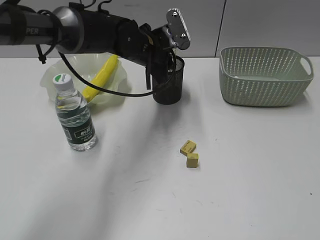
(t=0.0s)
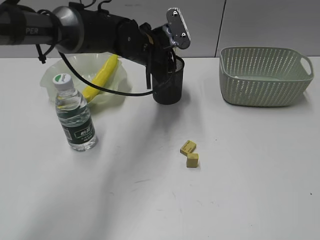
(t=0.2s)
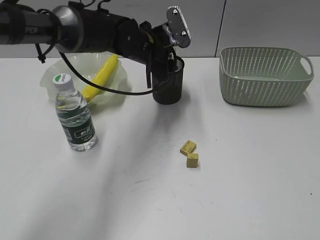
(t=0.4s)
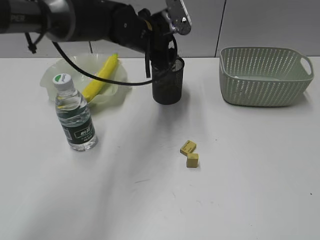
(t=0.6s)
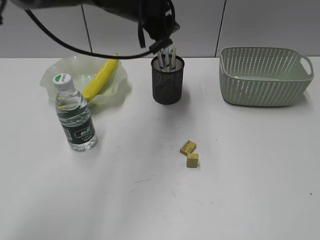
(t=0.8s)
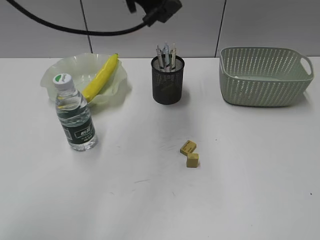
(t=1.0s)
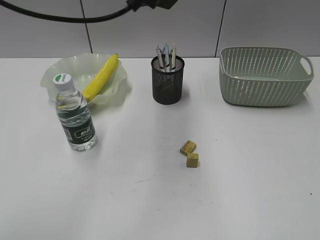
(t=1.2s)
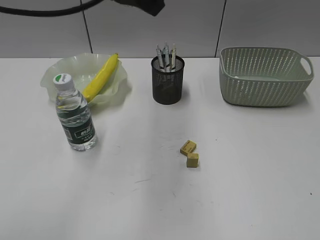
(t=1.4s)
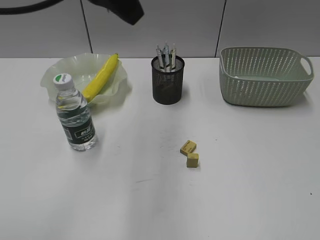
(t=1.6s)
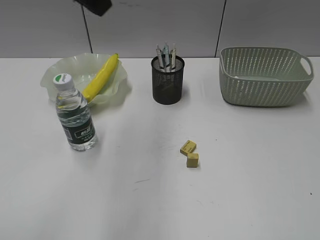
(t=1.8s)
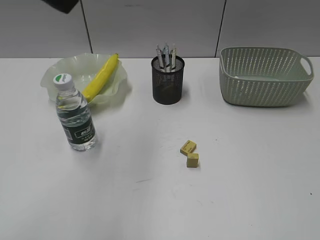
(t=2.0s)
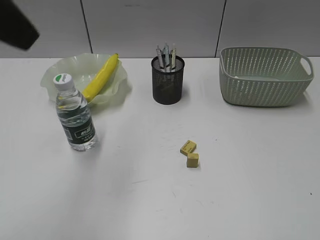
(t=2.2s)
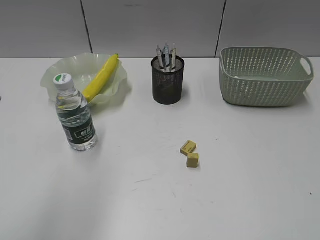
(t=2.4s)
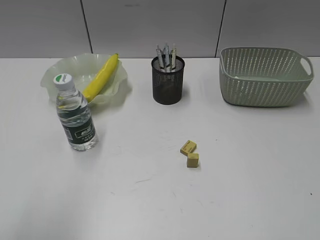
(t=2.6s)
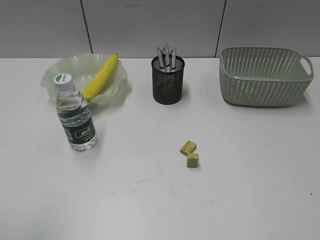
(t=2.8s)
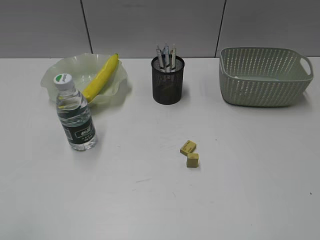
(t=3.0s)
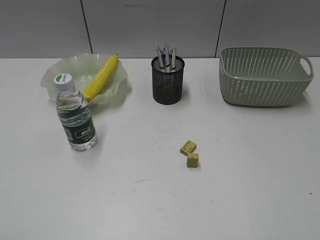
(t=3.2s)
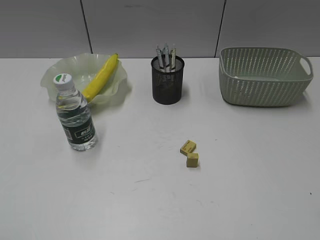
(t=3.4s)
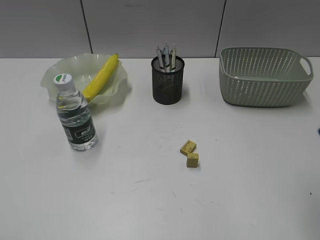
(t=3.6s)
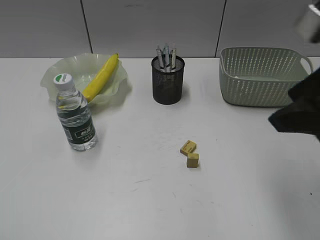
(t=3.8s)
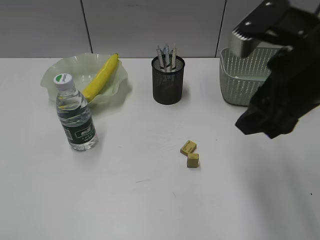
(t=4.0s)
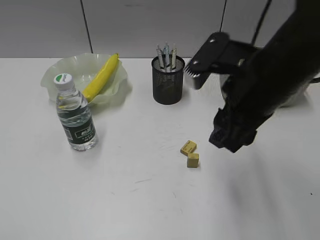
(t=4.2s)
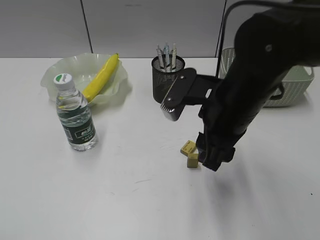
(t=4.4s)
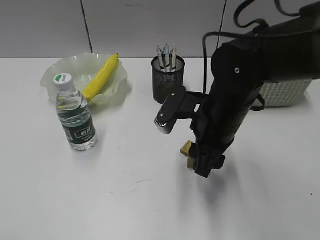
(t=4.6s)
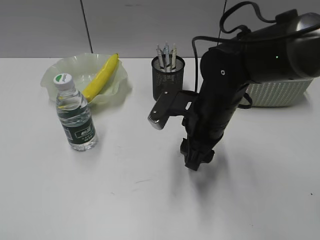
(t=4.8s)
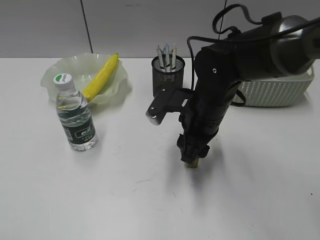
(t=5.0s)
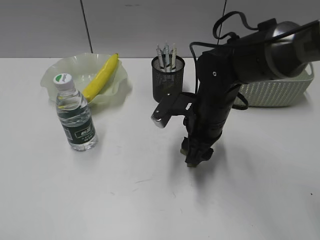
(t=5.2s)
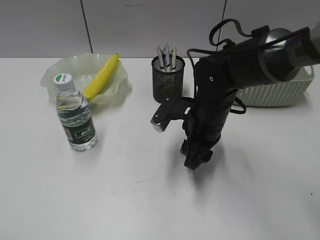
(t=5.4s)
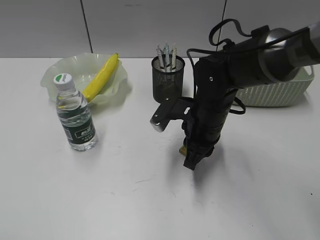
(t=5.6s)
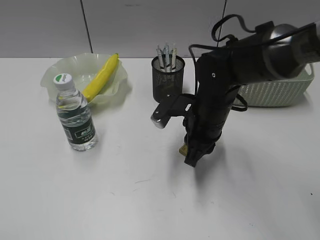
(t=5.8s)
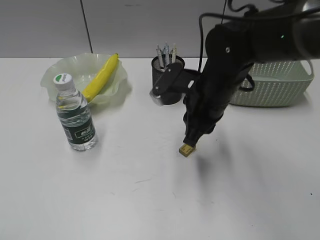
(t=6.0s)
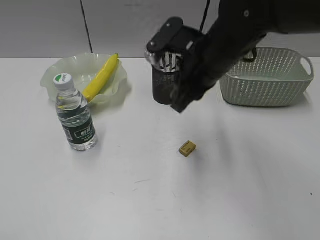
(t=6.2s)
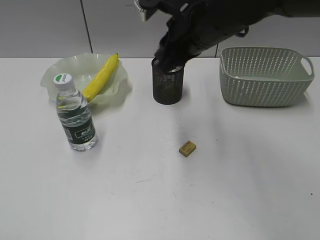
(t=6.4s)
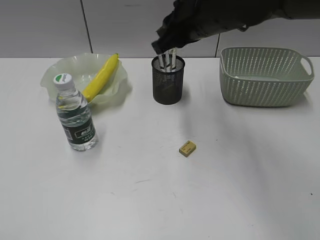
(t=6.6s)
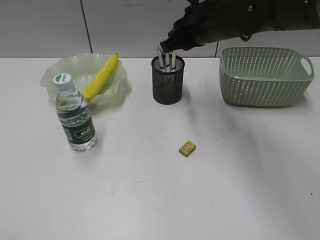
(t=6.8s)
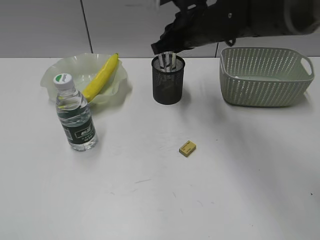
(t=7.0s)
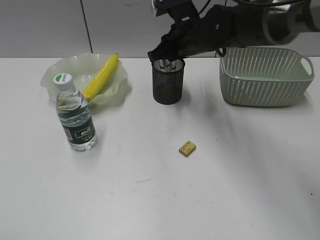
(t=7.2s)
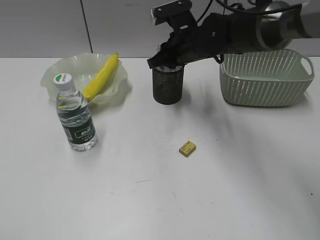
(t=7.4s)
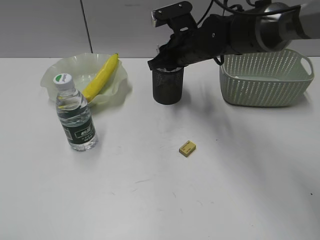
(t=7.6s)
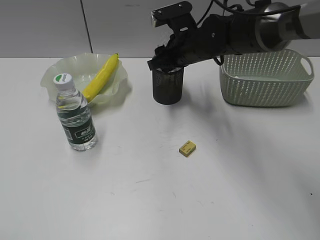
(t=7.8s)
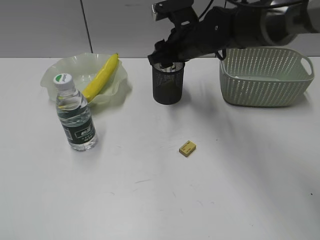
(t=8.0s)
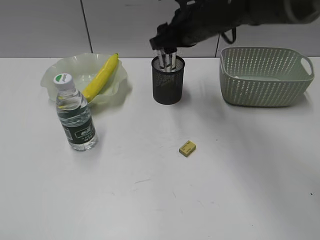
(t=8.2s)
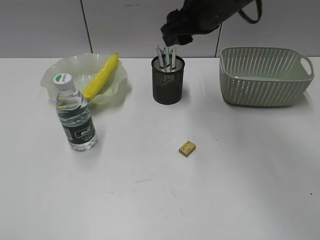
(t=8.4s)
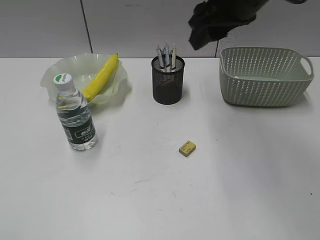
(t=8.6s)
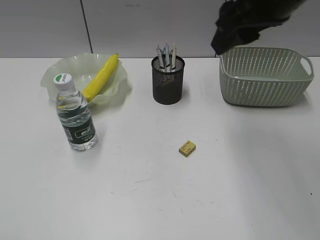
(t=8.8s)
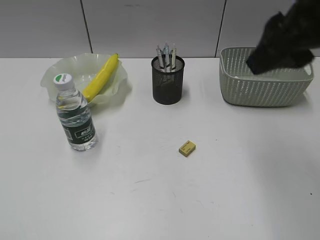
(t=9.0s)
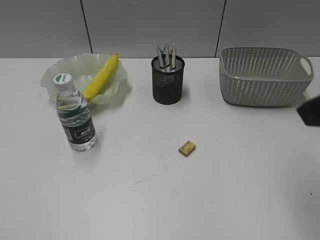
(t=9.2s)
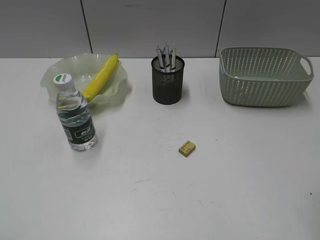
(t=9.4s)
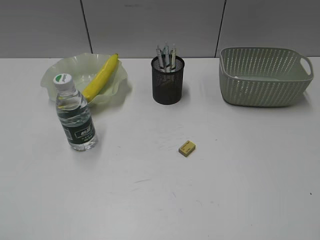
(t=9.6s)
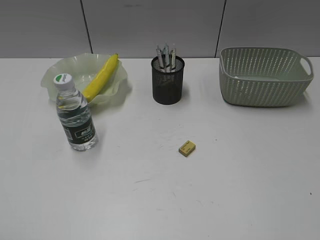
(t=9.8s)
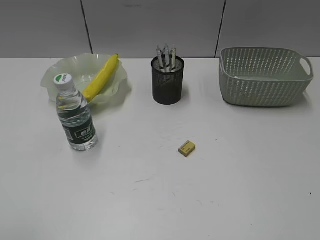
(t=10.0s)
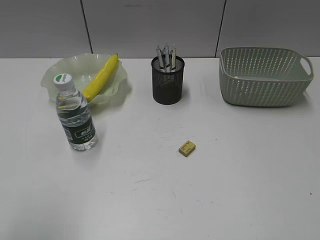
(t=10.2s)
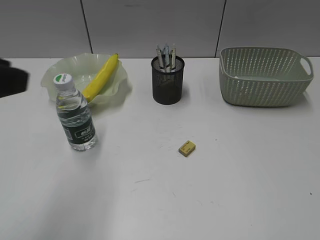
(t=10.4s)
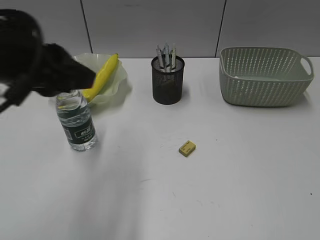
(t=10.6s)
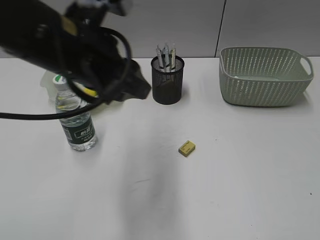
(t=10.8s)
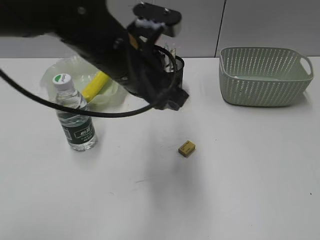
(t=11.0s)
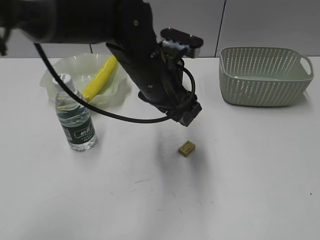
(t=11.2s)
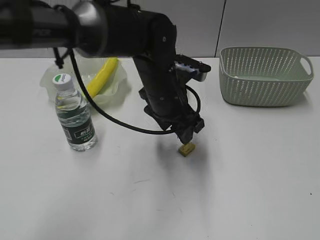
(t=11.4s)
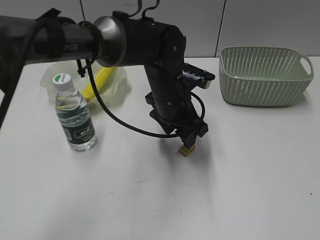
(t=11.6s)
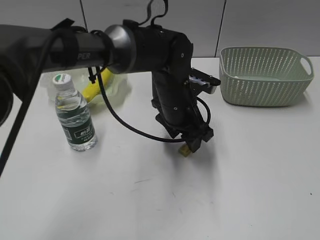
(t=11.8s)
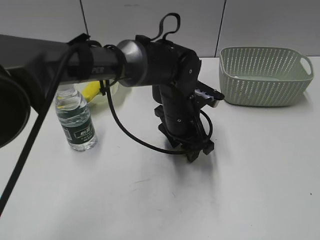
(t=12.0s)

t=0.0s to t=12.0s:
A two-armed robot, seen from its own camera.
Step, t=0.6s to t=5.6s: Grasp the eraser with right gripper.
Step, t=5.8s to t=7.8s: Place the eraser in pen holder with right gripper.
t=0.0s to t=1.6s: The left gripper heads upward and backward, covering about 25 cm, and opens up.
t=1.6s to t=3.0s: The left gripper is displaced backward, to the left and downward by some 35 cm.
t=3.0s to t=4.4s: The right gripper moves forward and to the left, some 35 cm.
t=4.4s to t=6.0s: The right gripper goes approximately 5 cm forward, and closes up.
t=6.0s to t=7.6s: The right gripper shifts approximately 10 cm forward.
t=7.6s to t=9.0s: The right gripper travels backward, upward and to the right by approximately 30 cm, and opens its fingers.
t=9.0s to t=10.4s: The right gripper travels backward and to the right by roughly 25 cm. Meanwhile the left gripper is displaced forward and to the right by approximately 15 cm.
t=10.4s to t=12.0s: The left gripper shifts some 40 cm to the right, downward and forward.

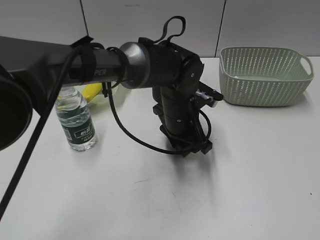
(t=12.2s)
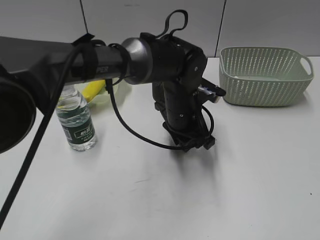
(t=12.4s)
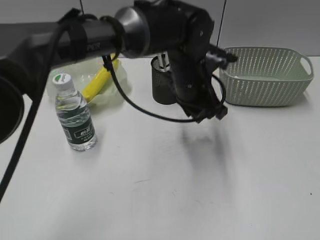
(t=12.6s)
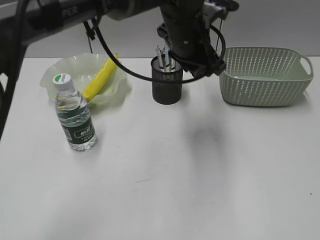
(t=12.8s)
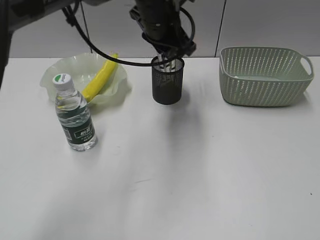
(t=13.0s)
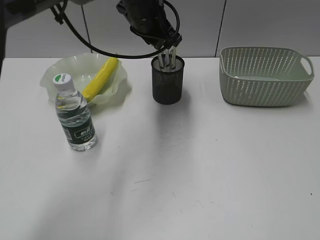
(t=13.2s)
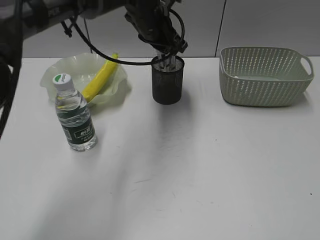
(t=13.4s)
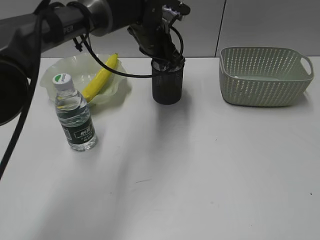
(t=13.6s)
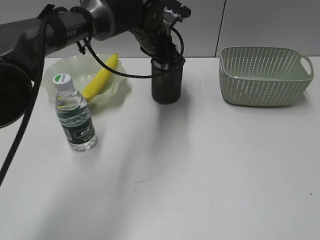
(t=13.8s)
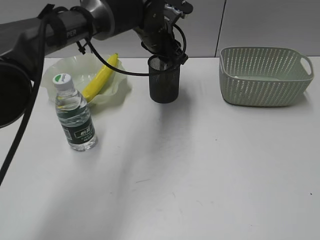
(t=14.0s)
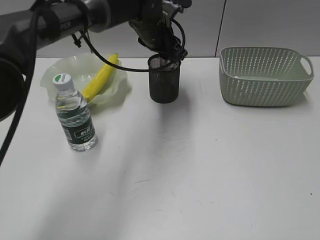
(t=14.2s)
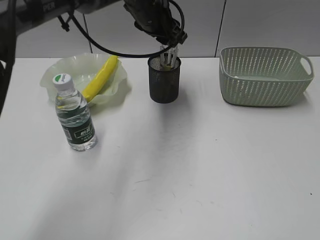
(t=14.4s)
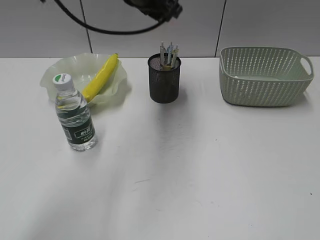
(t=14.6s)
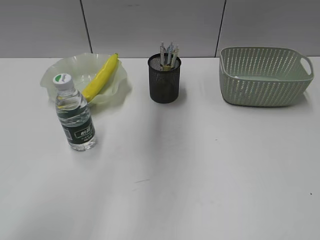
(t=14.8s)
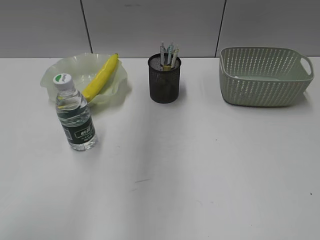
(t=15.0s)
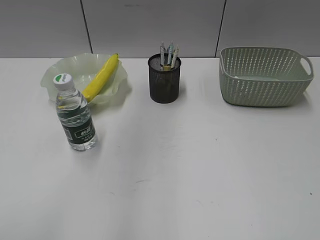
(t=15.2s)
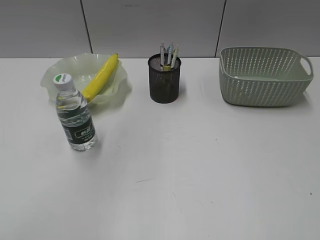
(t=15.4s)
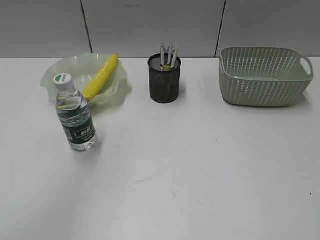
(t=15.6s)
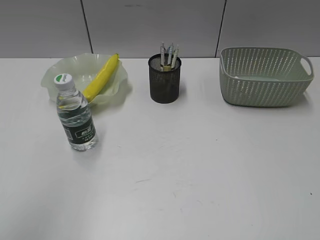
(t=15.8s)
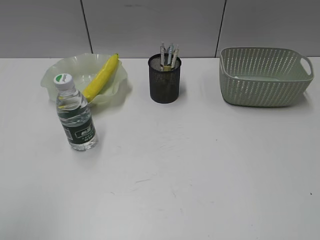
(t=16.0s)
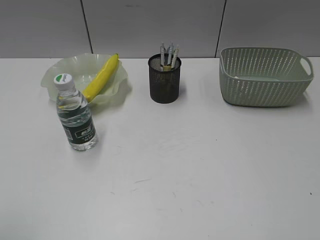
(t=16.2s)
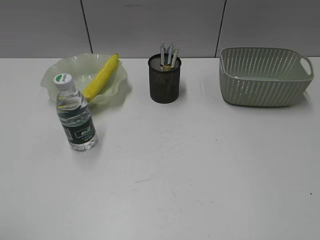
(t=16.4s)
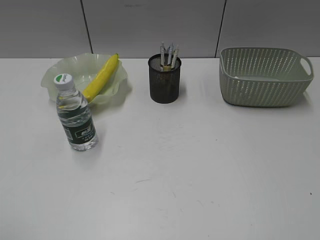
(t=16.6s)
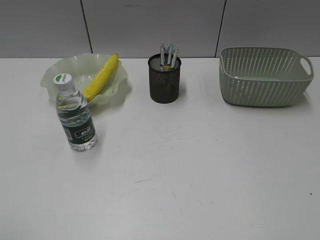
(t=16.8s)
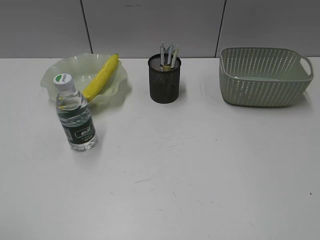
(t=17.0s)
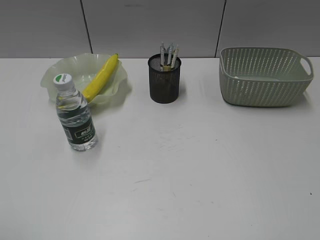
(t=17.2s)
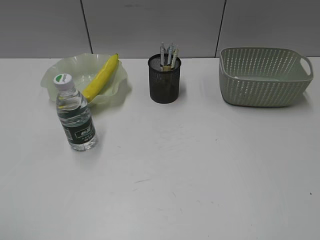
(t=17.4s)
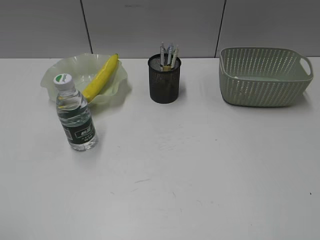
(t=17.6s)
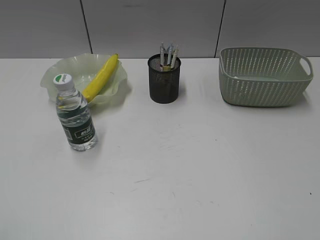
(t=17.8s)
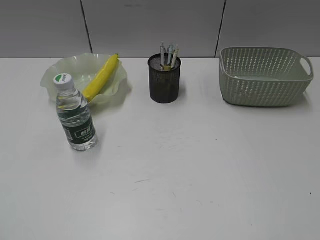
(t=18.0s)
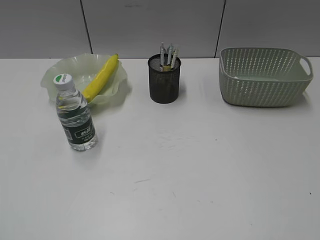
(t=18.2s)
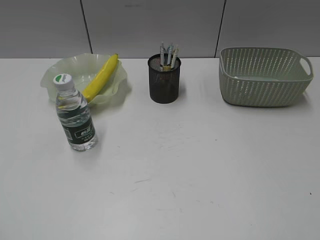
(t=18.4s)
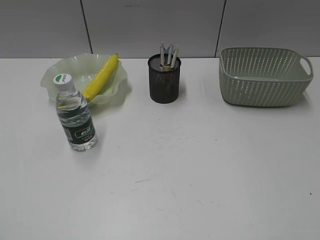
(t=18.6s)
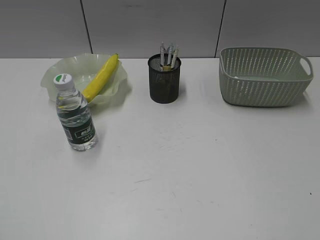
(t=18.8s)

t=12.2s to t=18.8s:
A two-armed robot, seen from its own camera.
Step, t=12.4s to t=14.2s: Place the eraser in pen holder with left gripper.
t=12.2s to t=13.8s: The left gripper goes roughly 15 cm forward and upward.
t=13.8s to t=15.4s: The left gripper is displaced upward, backward and to the left by about 50 cm, and opens up.
